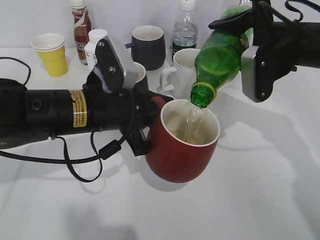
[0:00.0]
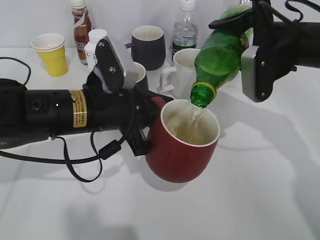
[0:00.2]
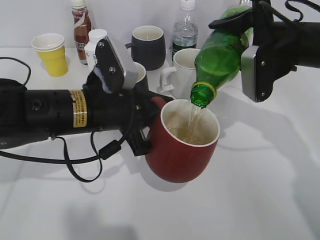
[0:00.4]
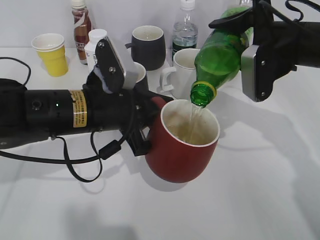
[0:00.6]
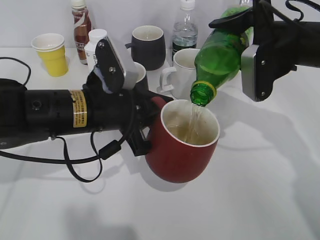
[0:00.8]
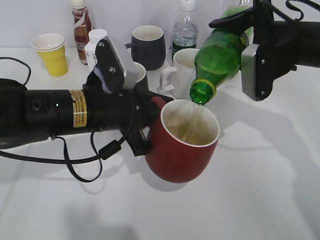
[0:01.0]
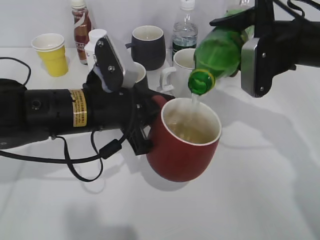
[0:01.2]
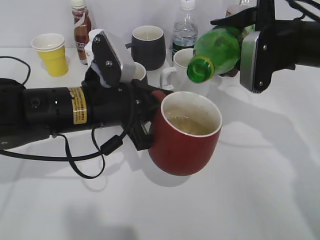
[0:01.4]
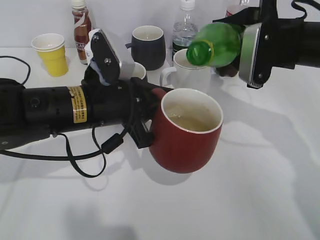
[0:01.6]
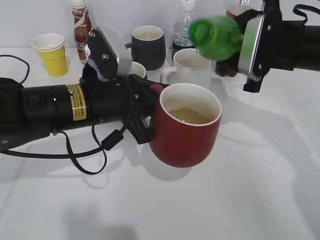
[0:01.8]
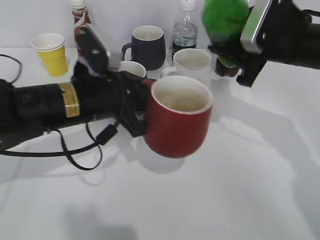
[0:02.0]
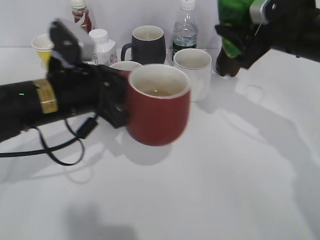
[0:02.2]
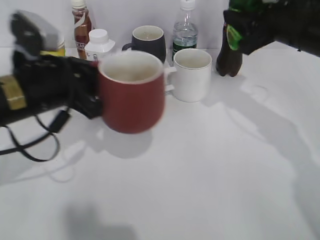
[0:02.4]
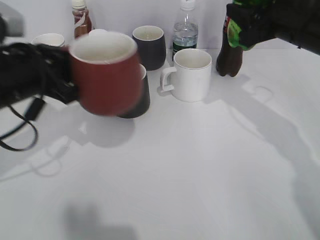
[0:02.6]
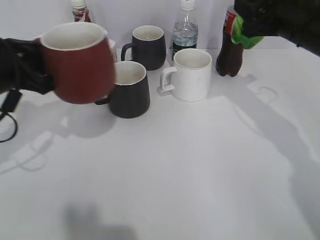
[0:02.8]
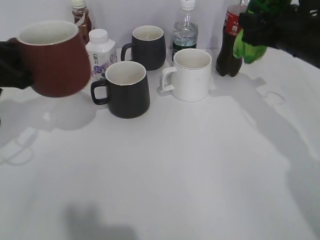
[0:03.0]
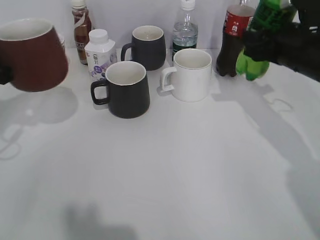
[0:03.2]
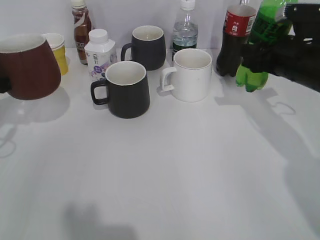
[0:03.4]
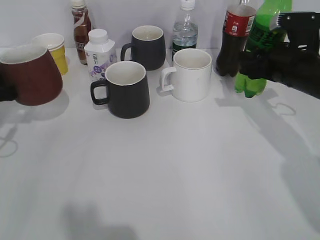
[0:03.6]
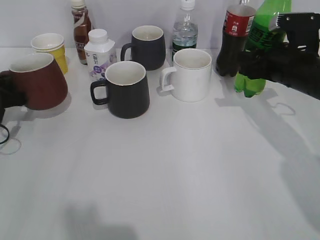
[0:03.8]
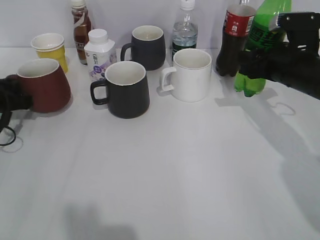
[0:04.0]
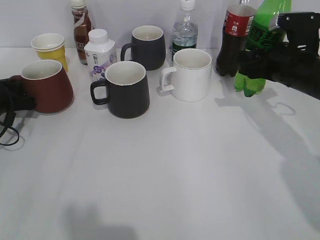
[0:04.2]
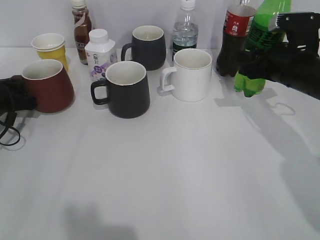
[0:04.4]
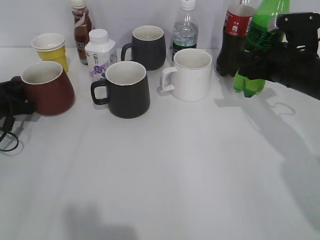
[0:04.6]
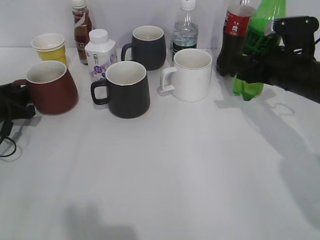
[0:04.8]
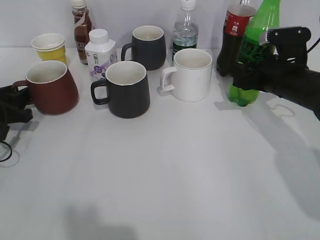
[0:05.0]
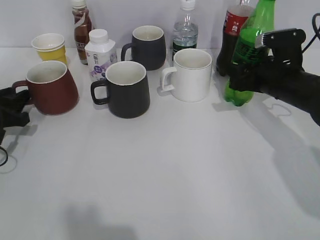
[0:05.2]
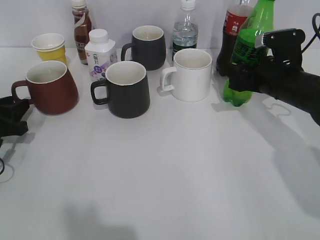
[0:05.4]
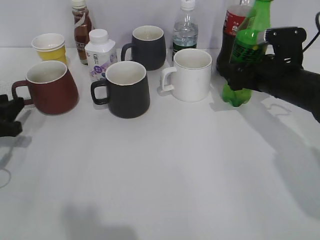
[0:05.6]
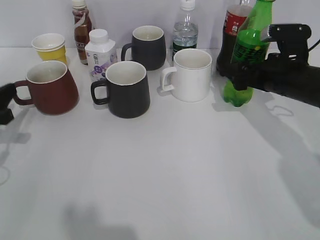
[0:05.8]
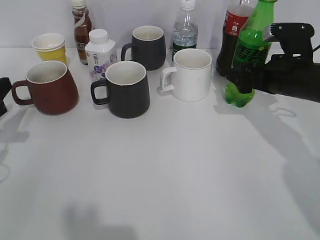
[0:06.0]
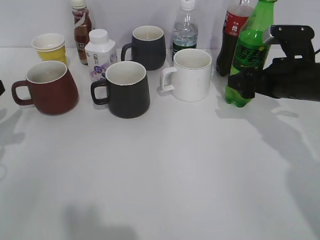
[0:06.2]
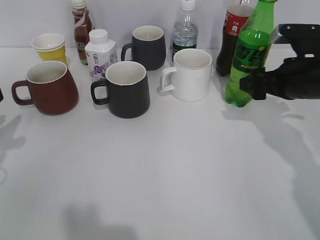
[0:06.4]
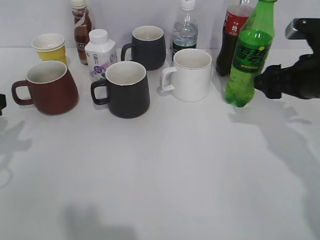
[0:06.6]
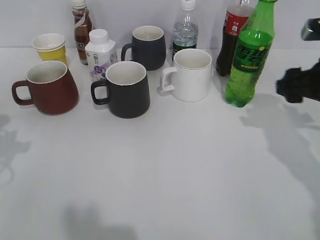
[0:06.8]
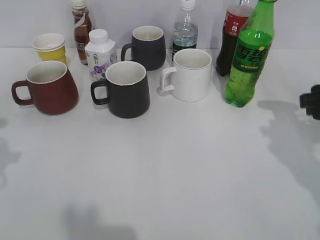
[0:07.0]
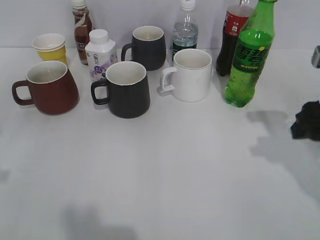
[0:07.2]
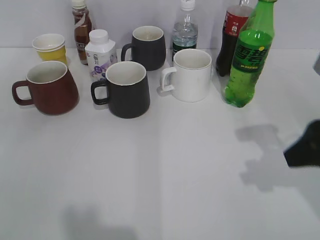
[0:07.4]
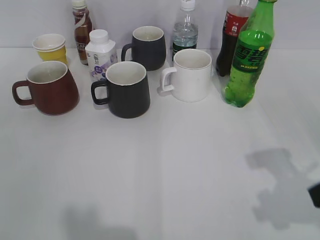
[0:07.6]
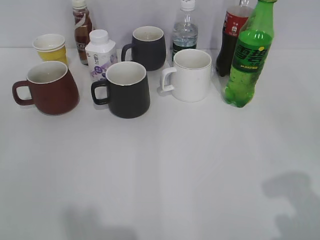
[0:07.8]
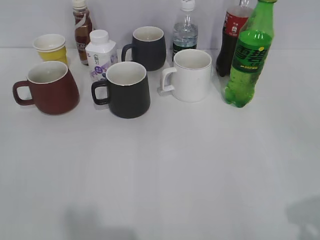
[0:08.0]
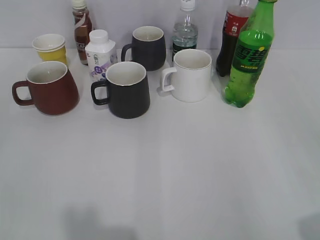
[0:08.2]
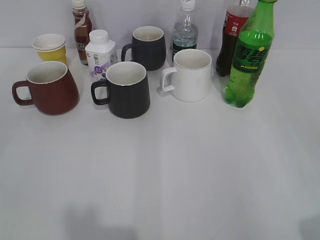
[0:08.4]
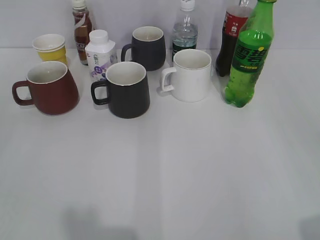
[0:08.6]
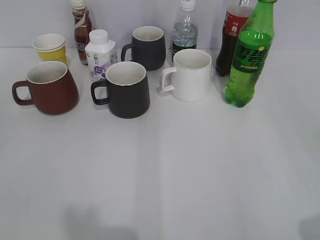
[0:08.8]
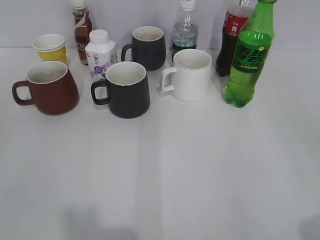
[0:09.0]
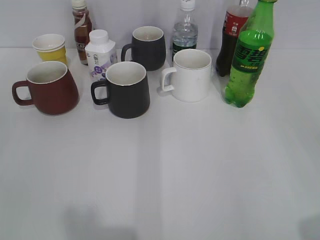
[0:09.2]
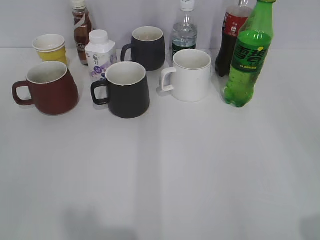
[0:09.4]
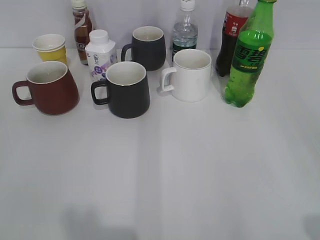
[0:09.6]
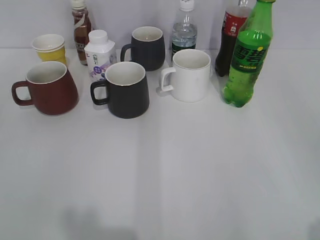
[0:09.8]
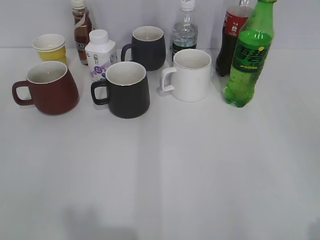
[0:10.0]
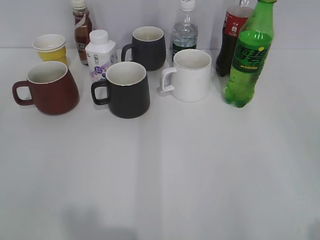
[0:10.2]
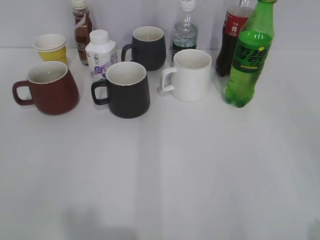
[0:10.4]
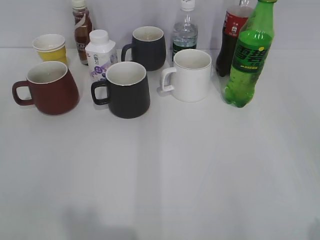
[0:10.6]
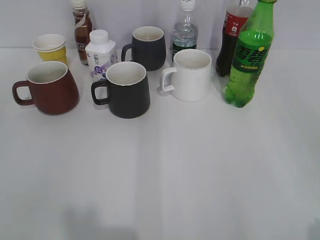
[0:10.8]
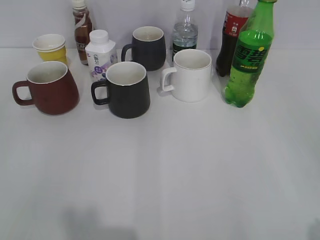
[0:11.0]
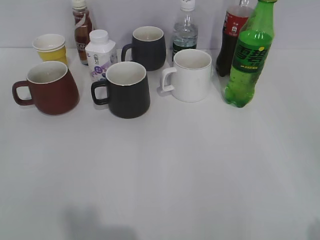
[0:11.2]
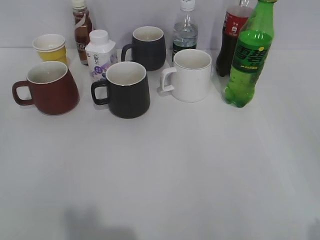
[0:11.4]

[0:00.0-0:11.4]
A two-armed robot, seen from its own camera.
Step, 0:01.6 to 0:06.2: Place the sprite bottle on the table with right gripper.
0:00.0 to 0:01.4: The grippers move only a little.
0:01.4 to 0:02.8: The left gripper moves to the left, approximately 15 cm.
0:02.8 to 0:04.2: The left gripper moves downward, to the left and forward, about 20 cm, while the right gripper is displaced downward by some 5 cm.
0:04.2 to 0:05.6: The right gripper opens its fingers, while the left gripper is displaced backward by about 10 cm, and opens up.
0:05.6 to 0:07.2: The left gripper moves upward and backward, about 20 cm. Meanwhile the right gripper shifts roughly 15 cm backward and upward, and closes.
0:07.2 to 0:08.6: The right gripper moves backward, approximately 25 cm.
0:10.0 to 0:11.4: Neither gripper changes place.
